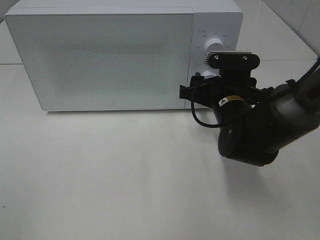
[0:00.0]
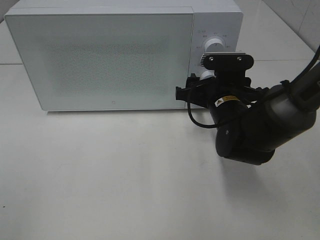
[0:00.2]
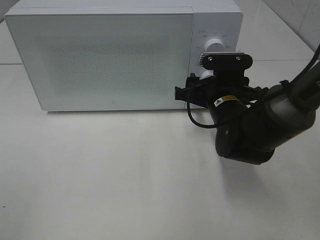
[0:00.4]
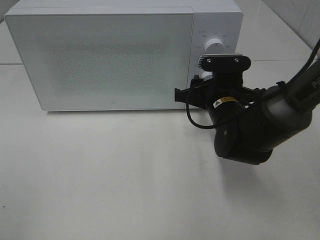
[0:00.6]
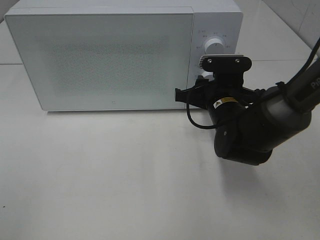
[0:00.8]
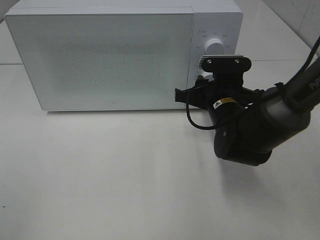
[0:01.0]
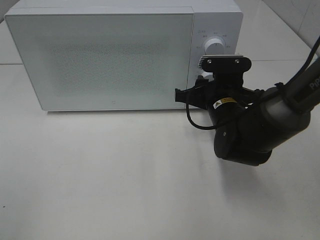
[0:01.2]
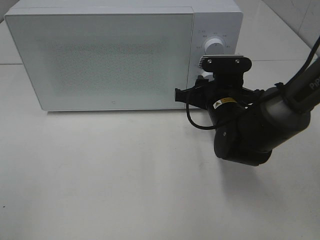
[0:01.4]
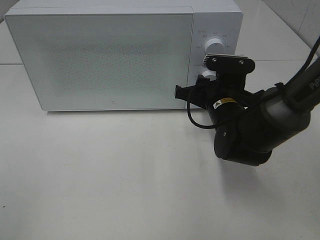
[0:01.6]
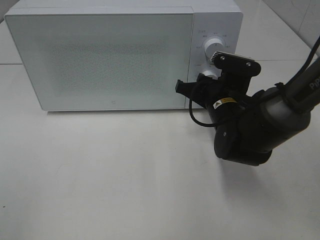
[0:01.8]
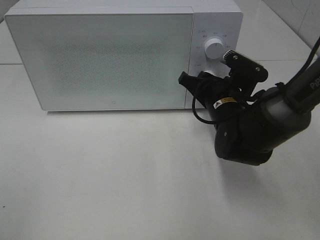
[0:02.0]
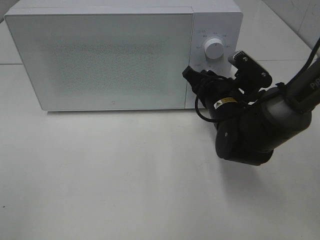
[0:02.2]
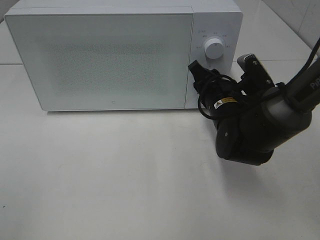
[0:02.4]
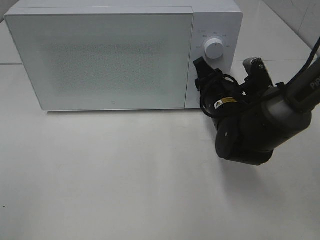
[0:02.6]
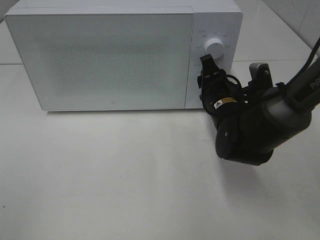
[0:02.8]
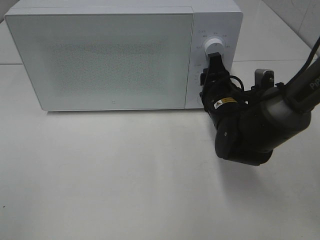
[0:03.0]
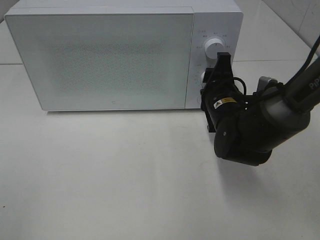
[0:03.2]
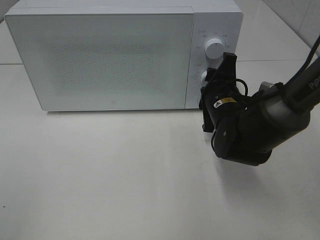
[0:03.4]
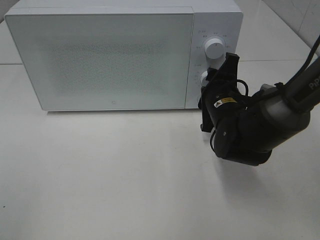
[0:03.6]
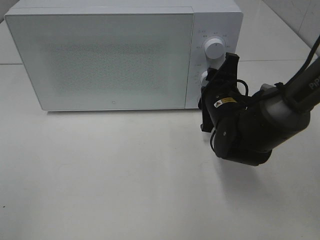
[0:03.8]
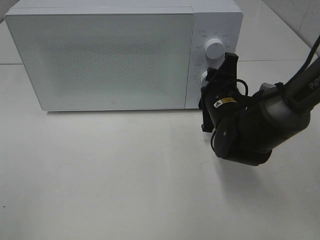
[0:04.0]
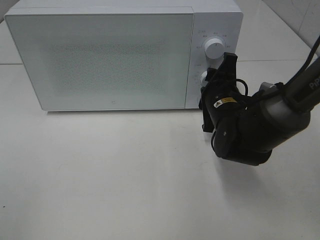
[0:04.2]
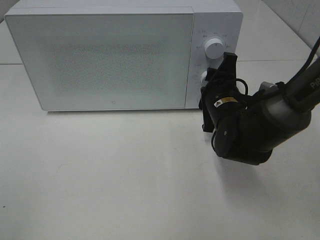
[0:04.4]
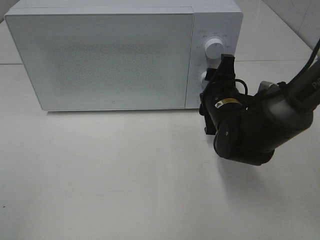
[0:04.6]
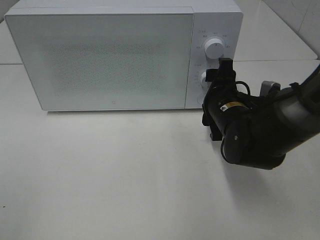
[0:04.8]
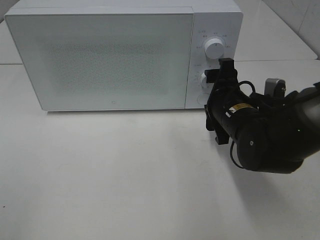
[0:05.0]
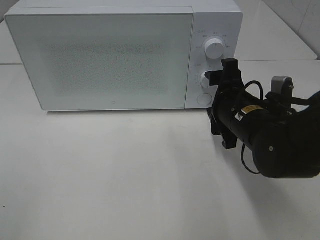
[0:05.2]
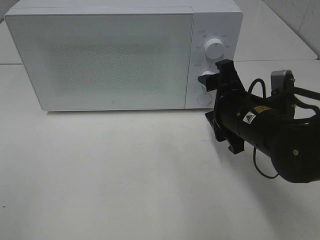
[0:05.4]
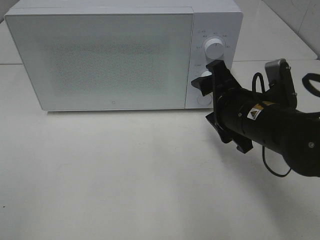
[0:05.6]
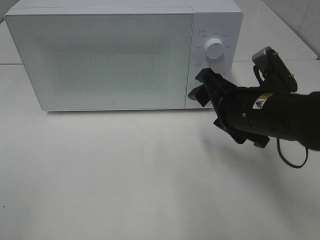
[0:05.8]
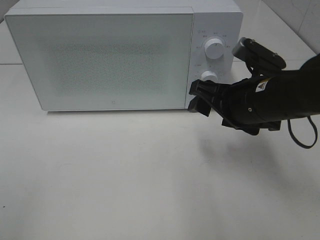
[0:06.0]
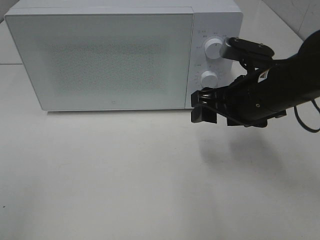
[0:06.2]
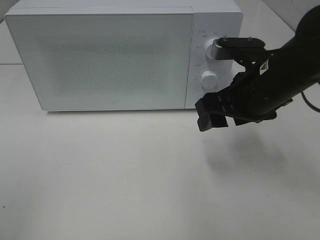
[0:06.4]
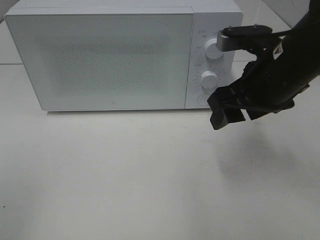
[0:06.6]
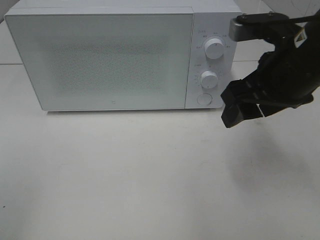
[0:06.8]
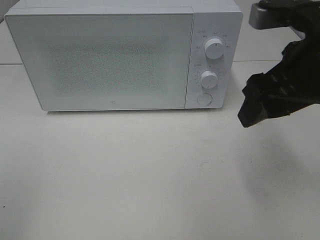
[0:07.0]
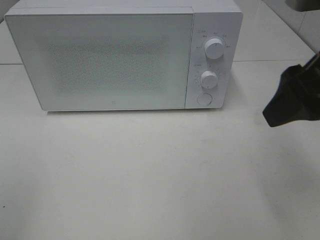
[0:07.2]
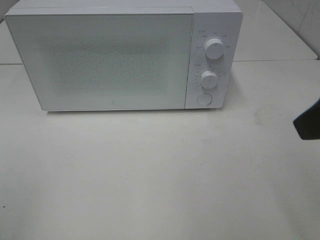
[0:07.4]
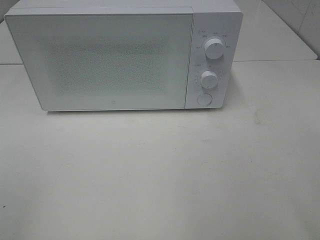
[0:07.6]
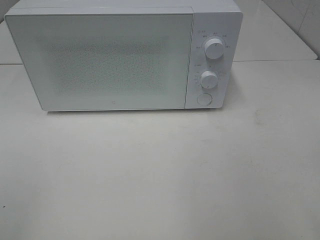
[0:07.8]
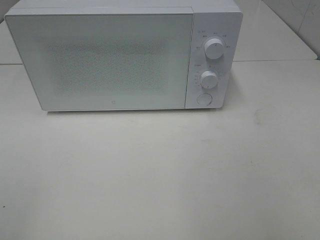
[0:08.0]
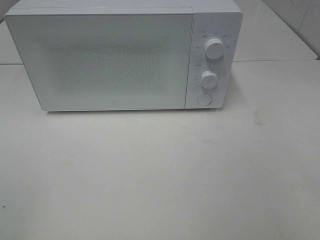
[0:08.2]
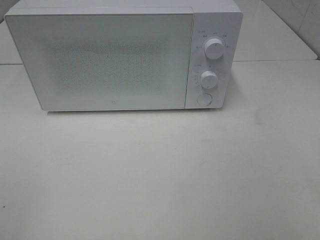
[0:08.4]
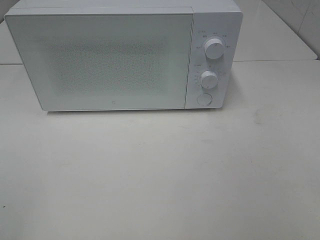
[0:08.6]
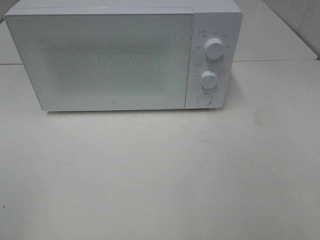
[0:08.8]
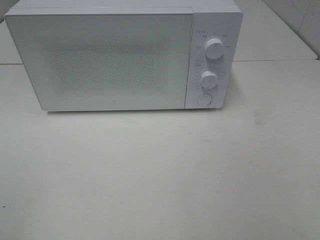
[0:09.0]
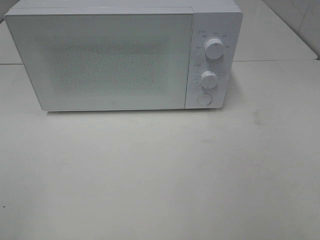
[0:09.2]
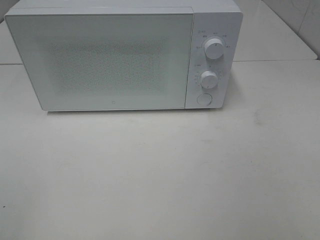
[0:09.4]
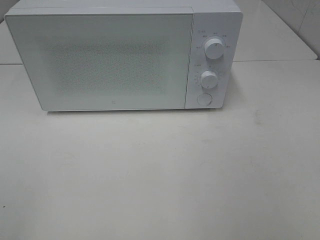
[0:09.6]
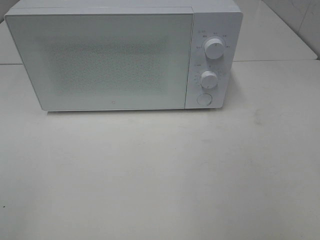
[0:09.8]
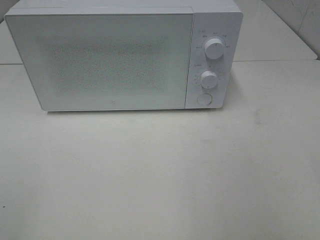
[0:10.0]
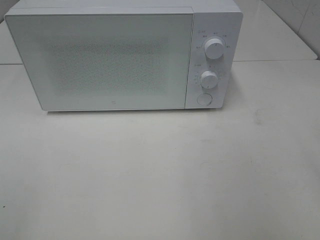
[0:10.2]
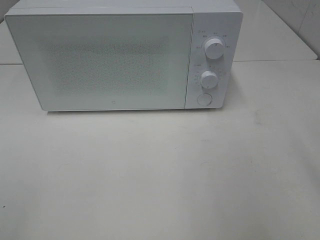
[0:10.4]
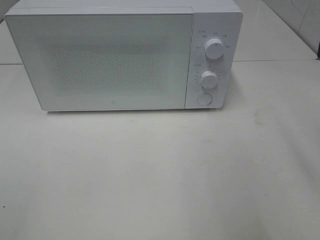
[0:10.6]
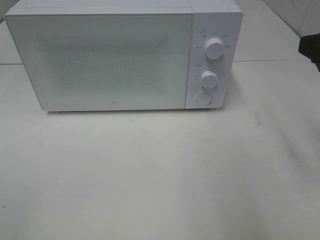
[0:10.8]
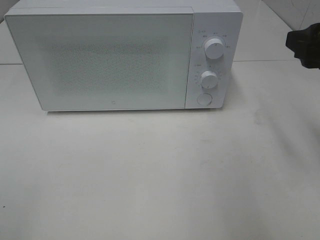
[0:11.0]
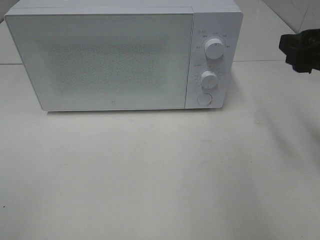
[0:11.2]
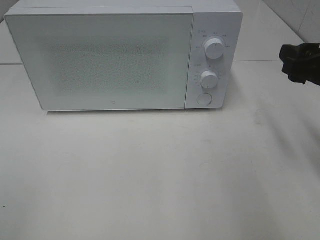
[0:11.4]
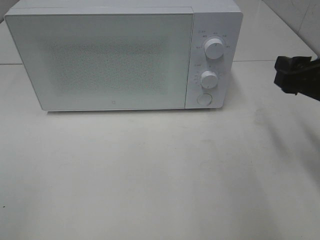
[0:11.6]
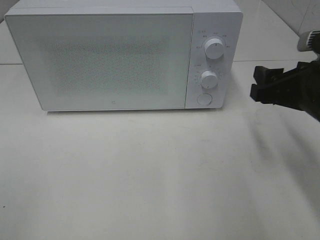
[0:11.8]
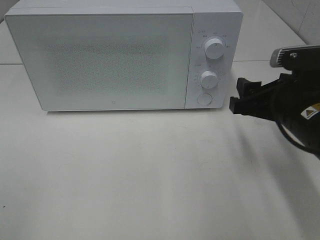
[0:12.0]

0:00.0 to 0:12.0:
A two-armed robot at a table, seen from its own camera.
Task of the whole recording: Heat the burger.
Step, 0:00.0 to 0:05.0: Right hand: twist timer button.
0:00.0 to 0:01.6: The right gripper closes.
0:04.4 to 0:06.0: The right gripper goes some 10 cm upward and backward.
0:06.0 to 0:07.6: The right gripper heads backward, upward and to the right, covering about 25 cm.
0:10.4 to 0:12.0: The right gripper shifts some 15 cm downward, forward and to the left.

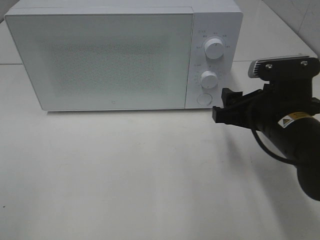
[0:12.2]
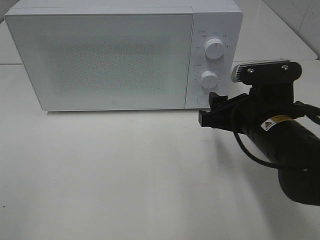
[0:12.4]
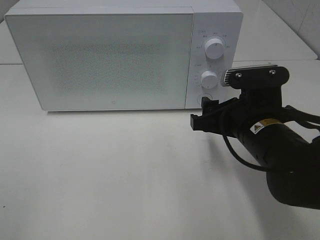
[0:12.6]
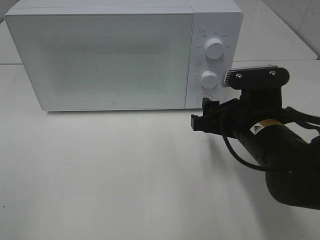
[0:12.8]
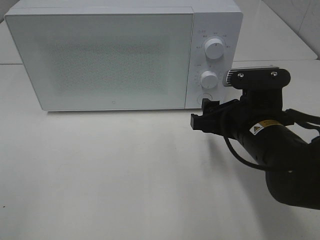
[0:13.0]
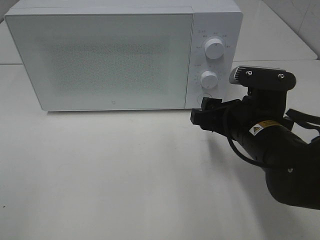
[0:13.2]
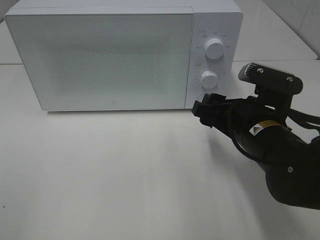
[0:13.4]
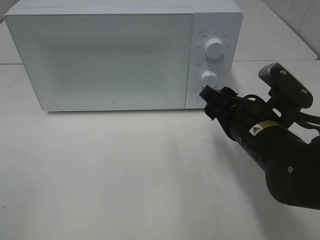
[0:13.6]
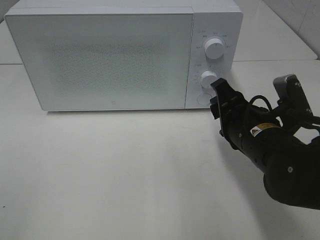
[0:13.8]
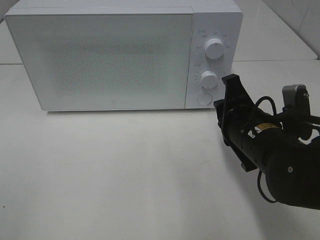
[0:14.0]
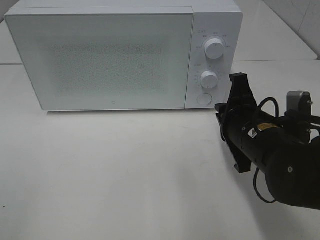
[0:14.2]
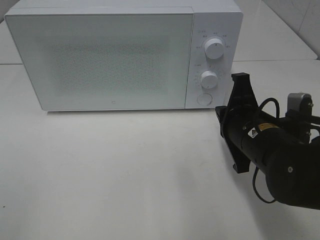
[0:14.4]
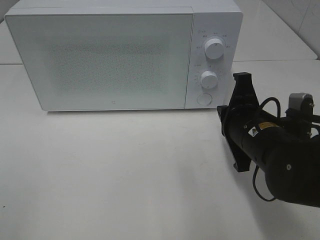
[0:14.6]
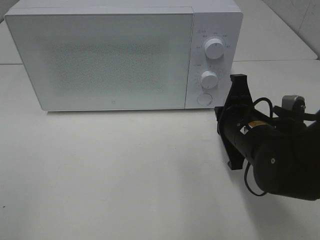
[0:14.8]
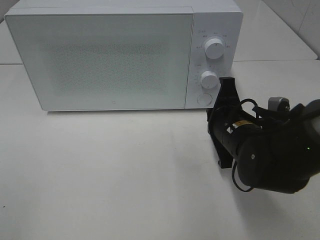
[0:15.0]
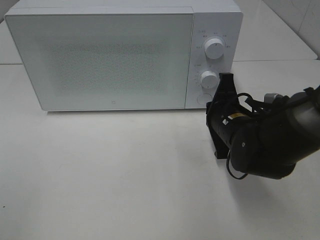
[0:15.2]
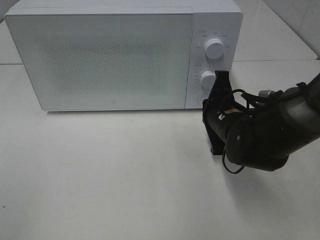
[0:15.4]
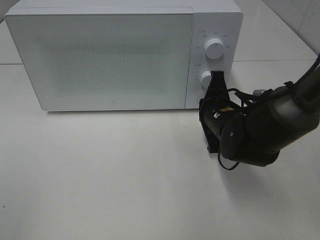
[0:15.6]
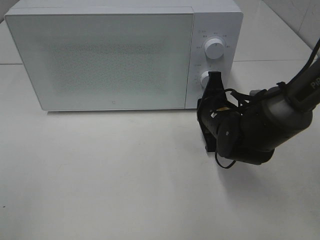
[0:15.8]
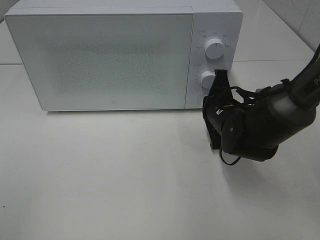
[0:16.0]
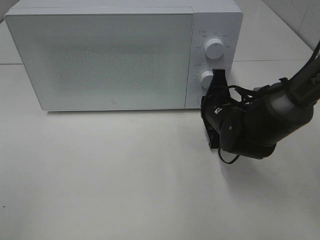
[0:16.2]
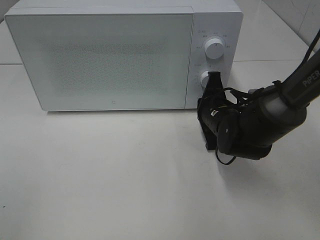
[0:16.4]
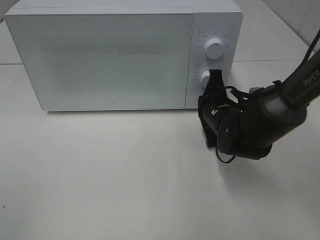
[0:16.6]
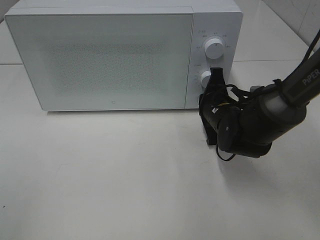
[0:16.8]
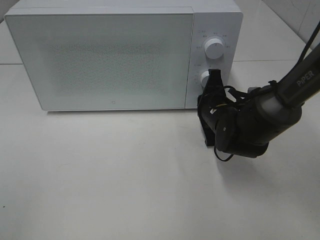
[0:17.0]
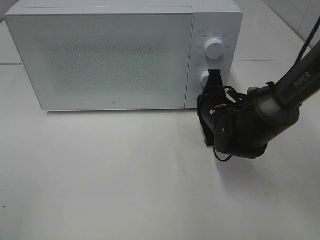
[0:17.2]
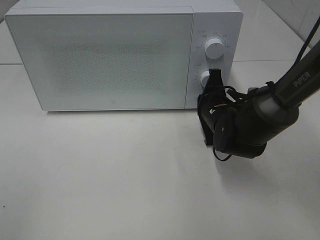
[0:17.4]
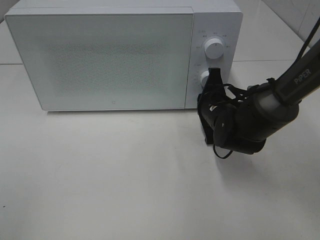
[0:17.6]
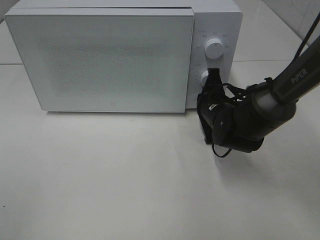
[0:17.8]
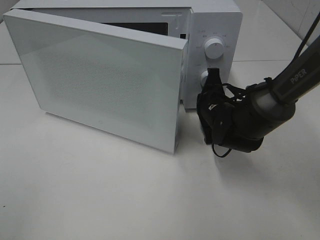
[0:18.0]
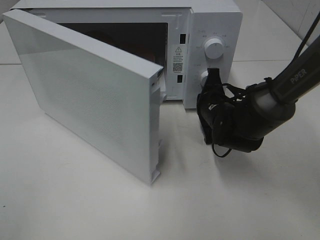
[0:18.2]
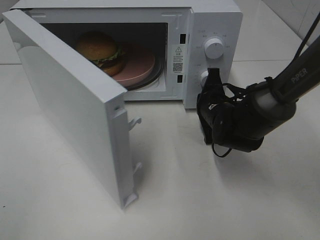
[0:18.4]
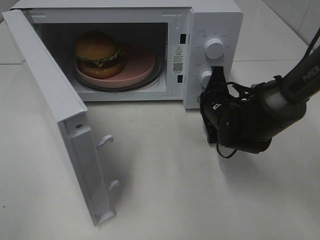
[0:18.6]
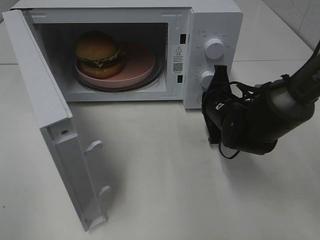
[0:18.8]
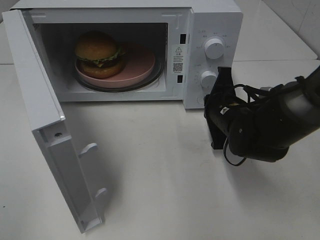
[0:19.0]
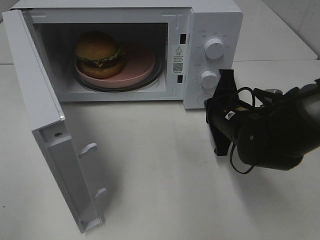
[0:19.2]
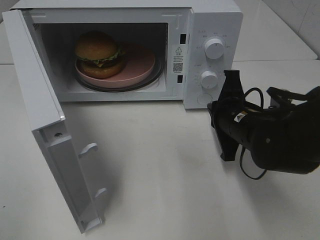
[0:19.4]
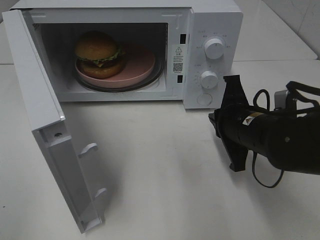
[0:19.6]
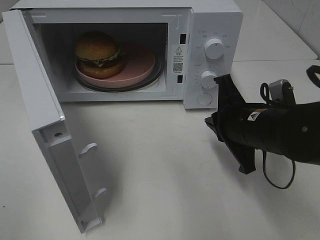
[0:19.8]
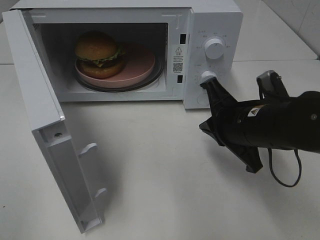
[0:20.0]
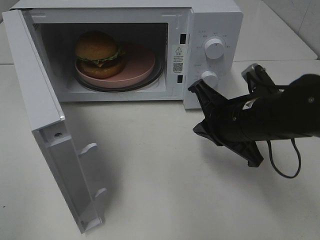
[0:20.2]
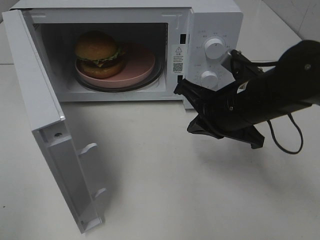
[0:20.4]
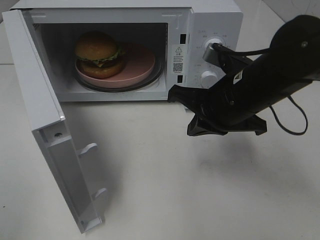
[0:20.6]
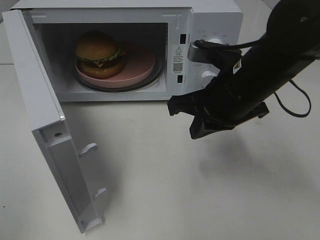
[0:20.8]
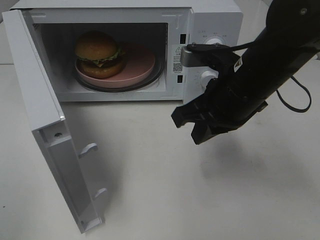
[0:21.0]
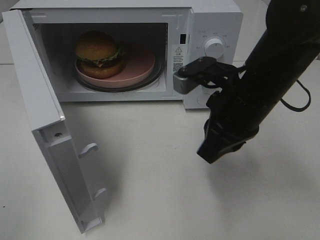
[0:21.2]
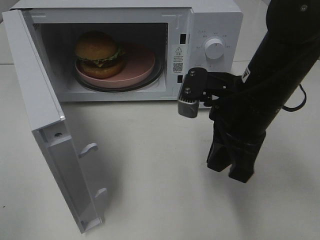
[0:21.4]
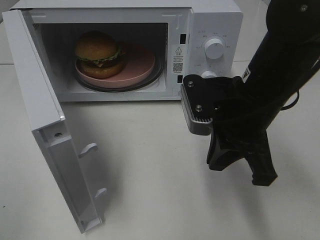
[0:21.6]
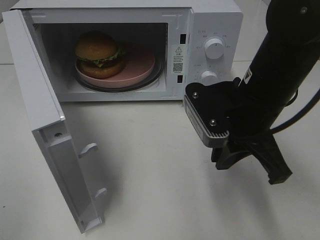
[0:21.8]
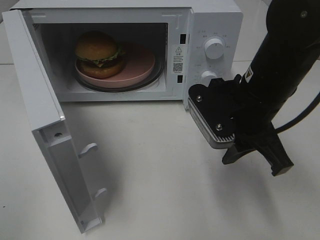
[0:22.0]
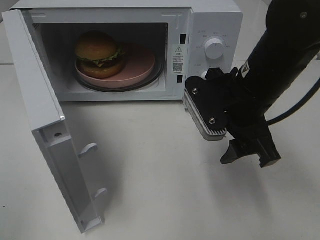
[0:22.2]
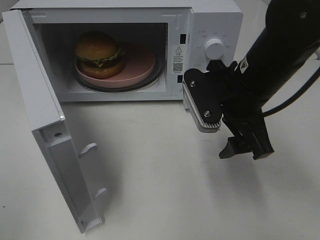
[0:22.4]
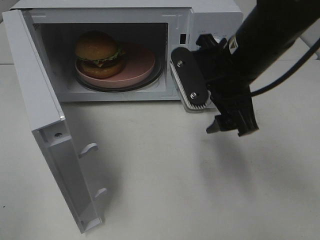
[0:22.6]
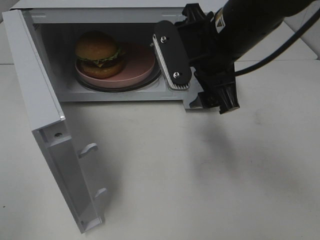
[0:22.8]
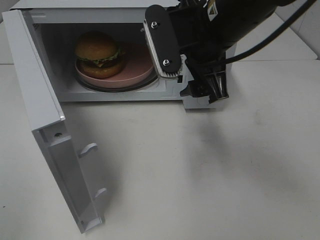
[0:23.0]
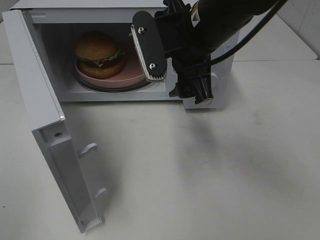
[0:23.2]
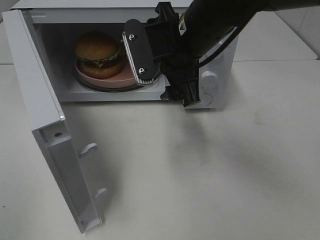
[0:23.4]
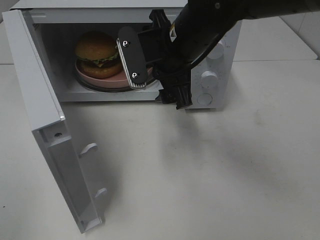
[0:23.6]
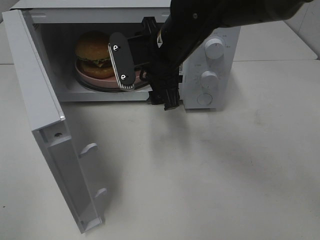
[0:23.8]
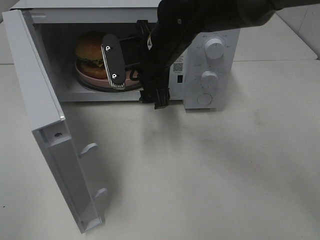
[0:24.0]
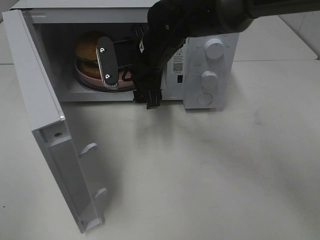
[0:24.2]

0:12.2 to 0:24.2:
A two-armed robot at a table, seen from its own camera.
Task of the whole recording: Heat the burger.
Step, 0:12.2 to 0:19.2: Right hand: press the switch.
0:13.8 to 0:15.2: The right gripper shifts some 5 cm forward, and closes its fingers.
0:15.2 to 0:16.6: The right gripper changes place by approximately 5 cm.
0:18.2 to 0:19.8: The right gripper travels backward and upward by some 15 cm.
0:19.8 to 0:21.2: The right gripper heads upward, covering roughly 5 cm.
0:21.2 to 0:22.6: The right gripper opens up.
0:22.6 to 0:24.2: The right gripper goes about 15 cm to the left, forward and downward.
